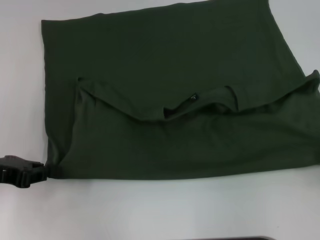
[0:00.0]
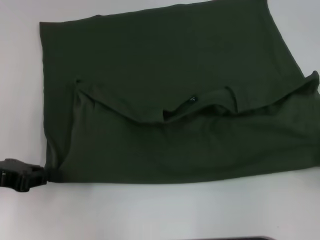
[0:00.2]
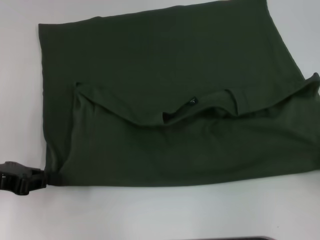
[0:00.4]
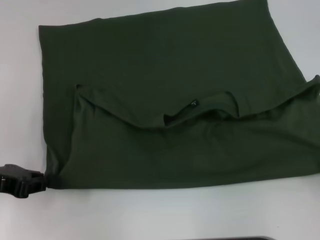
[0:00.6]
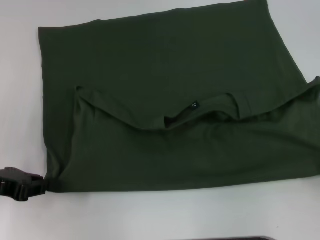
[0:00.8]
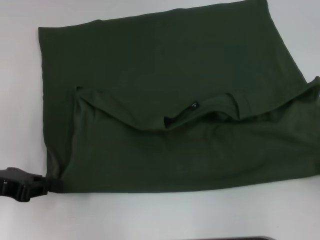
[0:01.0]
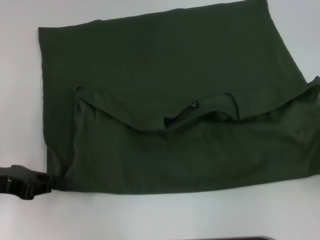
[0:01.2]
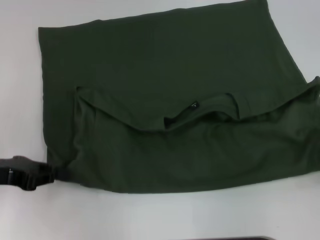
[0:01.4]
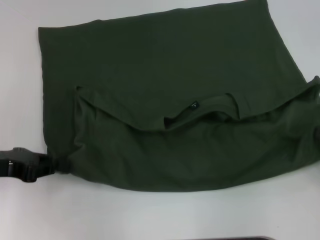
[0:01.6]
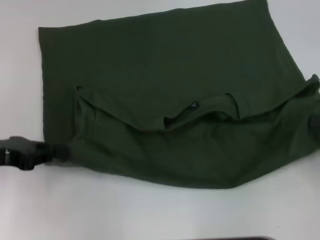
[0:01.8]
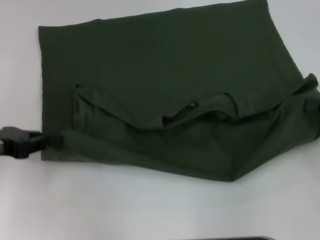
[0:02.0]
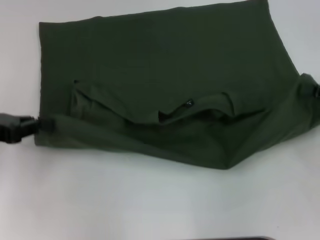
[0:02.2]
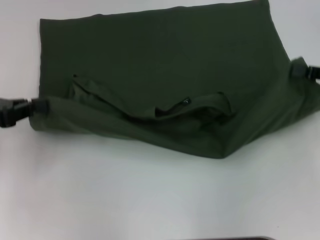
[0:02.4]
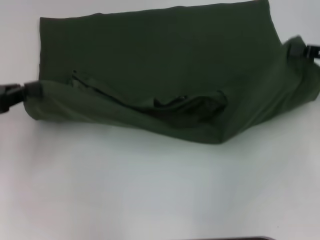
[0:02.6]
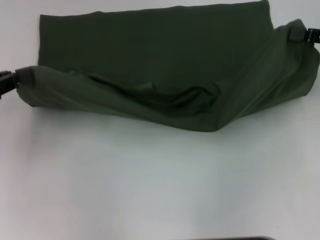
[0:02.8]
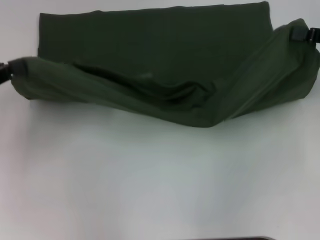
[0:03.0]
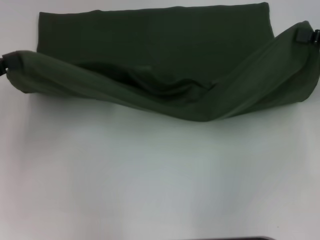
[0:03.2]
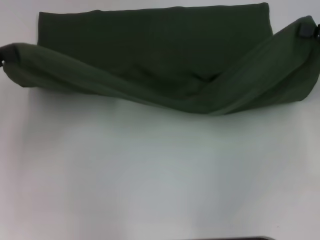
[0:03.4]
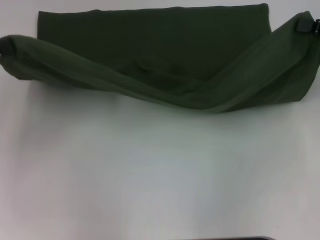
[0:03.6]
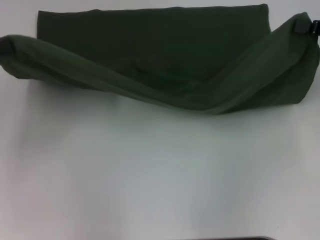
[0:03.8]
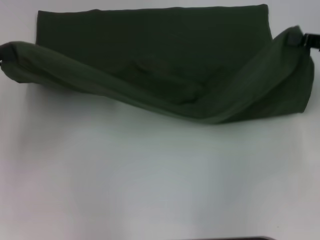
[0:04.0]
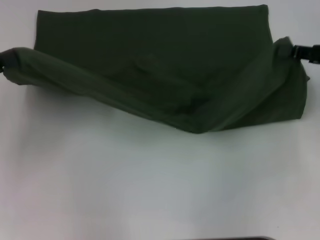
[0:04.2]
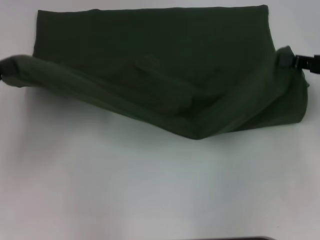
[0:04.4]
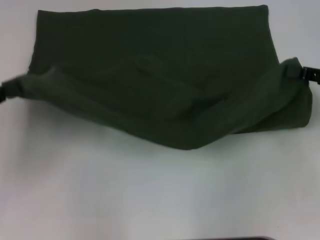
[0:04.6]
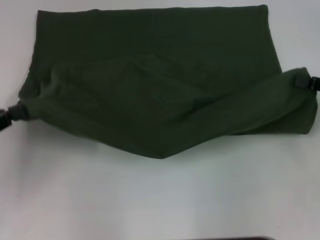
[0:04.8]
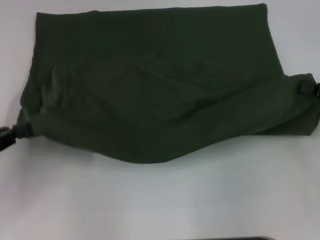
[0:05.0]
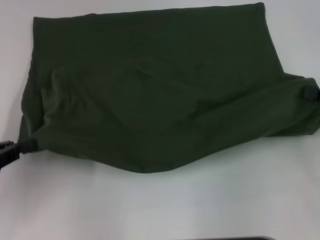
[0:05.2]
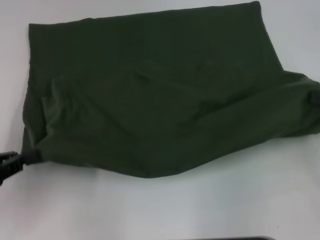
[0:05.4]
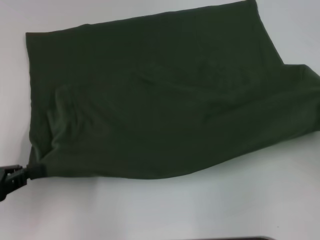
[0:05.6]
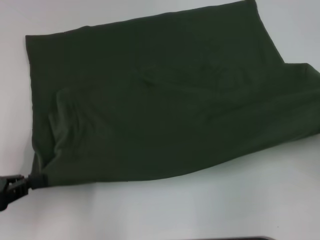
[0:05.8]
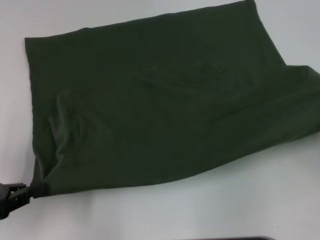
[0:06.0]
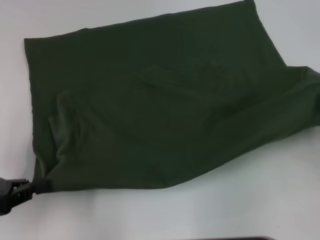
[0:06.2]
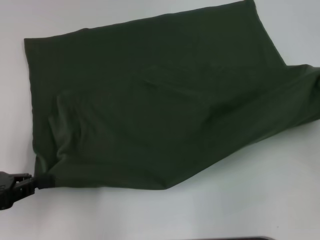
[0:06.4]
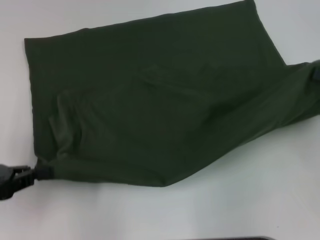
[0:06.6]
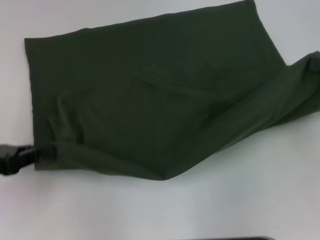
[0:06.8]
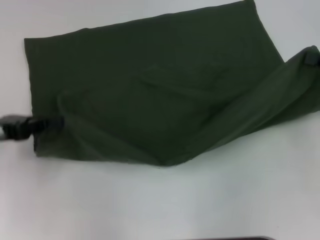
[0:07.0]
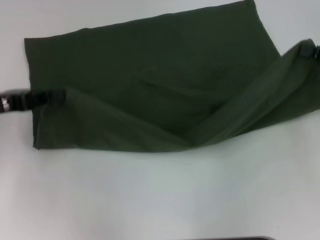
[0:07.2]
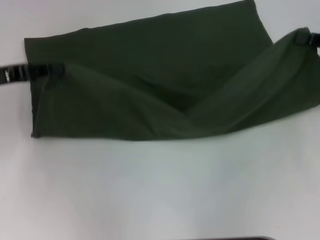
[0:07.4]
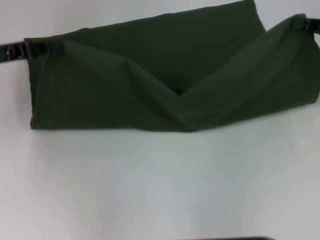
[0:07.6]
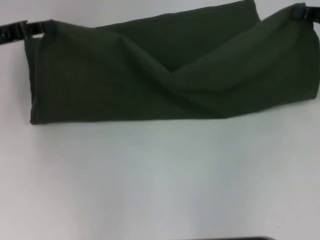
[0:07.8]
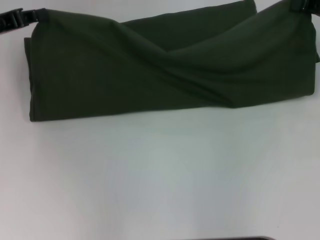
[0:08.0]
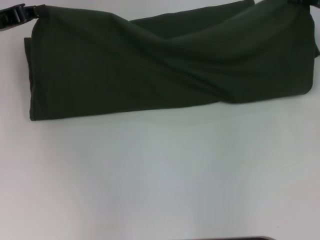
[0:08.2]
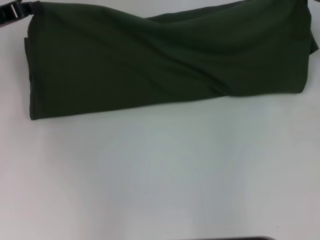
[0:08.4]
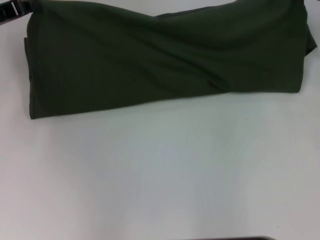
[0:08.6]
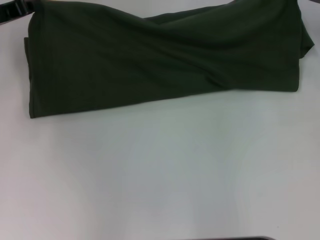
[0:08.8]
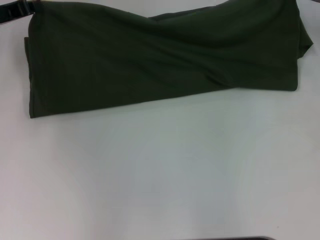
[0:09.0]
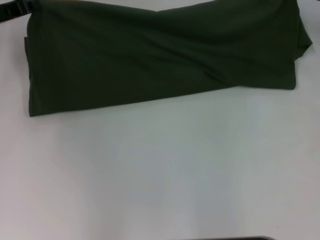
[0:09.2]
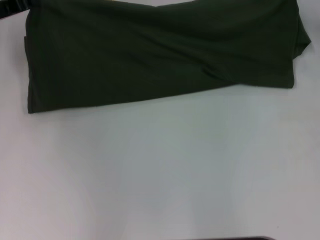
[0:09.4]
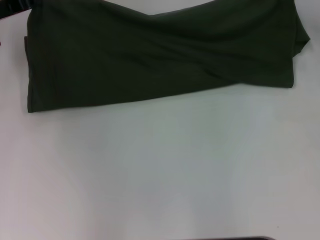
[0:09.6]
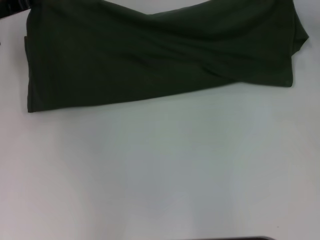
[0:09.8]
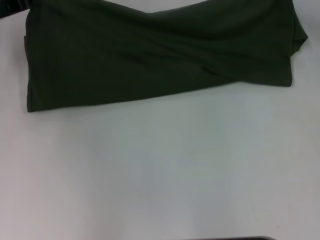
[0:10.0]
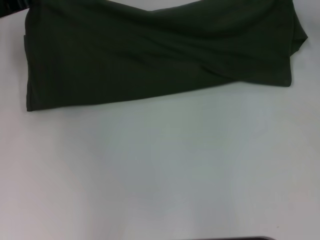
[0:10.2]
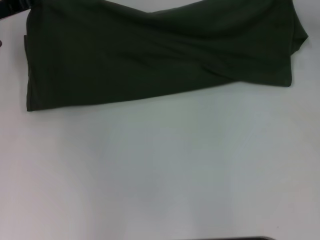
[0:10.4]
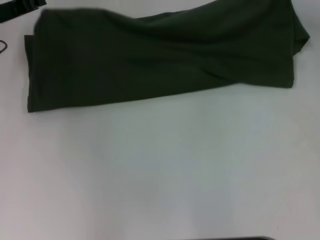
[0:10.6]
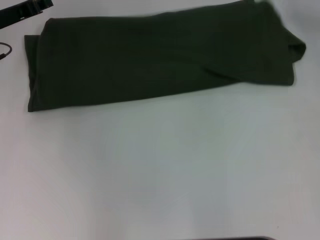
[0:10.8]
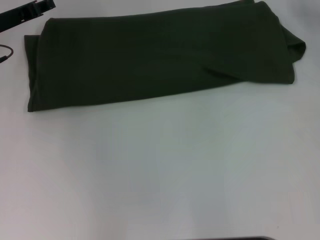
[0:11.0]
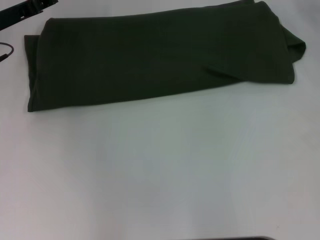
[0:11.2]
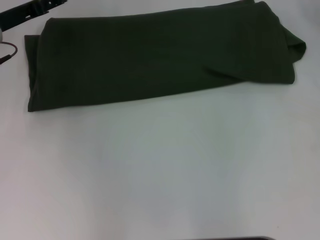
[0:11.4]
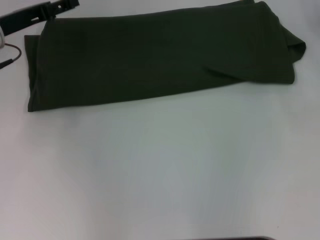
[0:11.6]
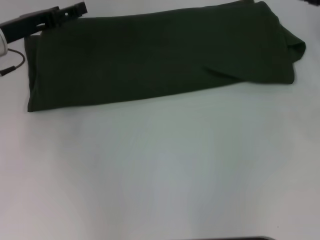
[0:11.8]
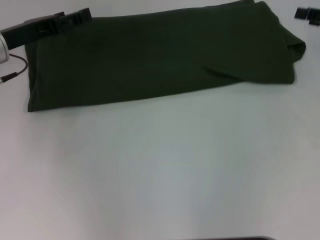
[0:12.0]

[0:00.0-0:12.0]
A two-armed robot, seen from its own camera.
Step, 0:00.8 to 0:11.2: Fold the clothes with your right hand.
0:00.0 to 0:01.6: There are only small adjustments of the grippers.
0:01.6 to 0:03.0: The left gripper moves roughly 5 cm. The right gripper travels forward and upward by approximately 15 cm.
0:03.0 to 0:04.4: The grippers move only a little.
0:04.4 to 0:06.0: The right gripper shifts roughly 10 cm backward and to the right; the left gripper moves backward and downward, some 10 cm.
0:06.0 to 0:07.6: Both grippers travel together forward, some 15 cm.
0:07.6 to 0:09.0: The grippers both shift forward by roughly 5 cm.
0:09.0 to 0:10.4: There are only small adjustments of the grippers.
0:10.4 to 0:12.0: The left gripper changes place by roughly 5 cm, and opens up. Meanwhile the right gripper heads backward and to the right, covering some 10 cm, and opens its fingers.

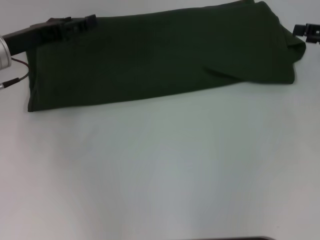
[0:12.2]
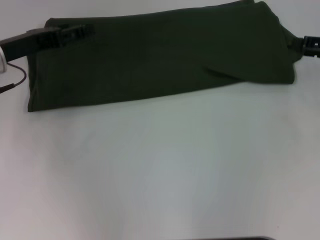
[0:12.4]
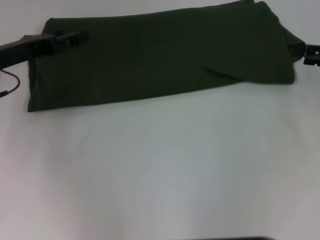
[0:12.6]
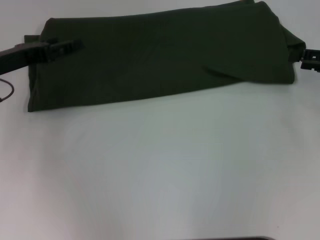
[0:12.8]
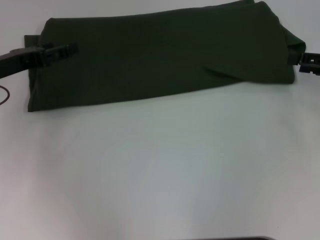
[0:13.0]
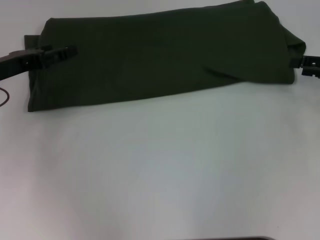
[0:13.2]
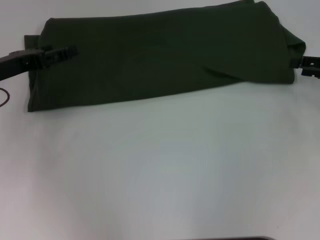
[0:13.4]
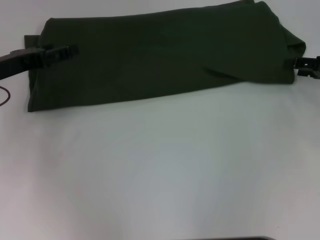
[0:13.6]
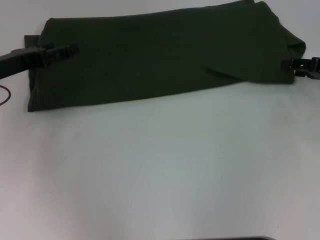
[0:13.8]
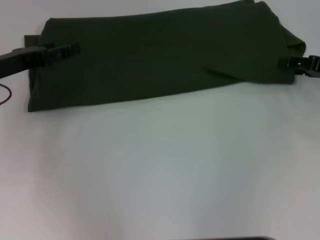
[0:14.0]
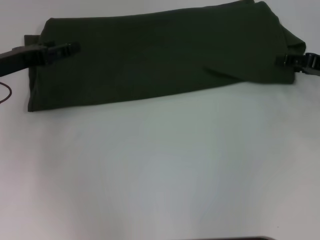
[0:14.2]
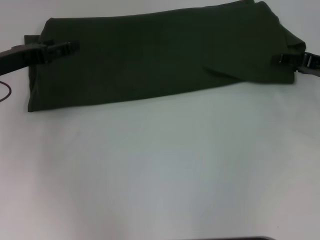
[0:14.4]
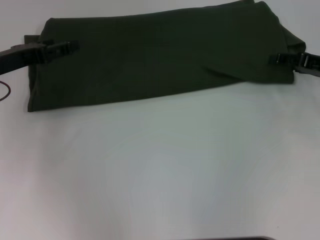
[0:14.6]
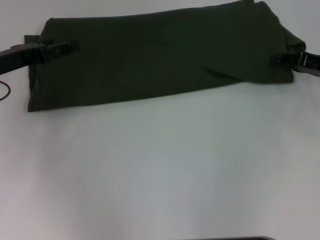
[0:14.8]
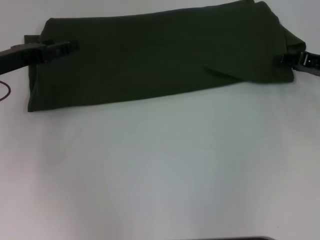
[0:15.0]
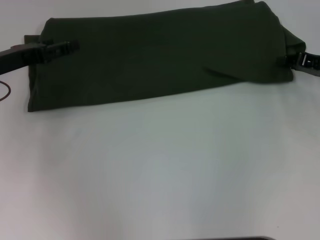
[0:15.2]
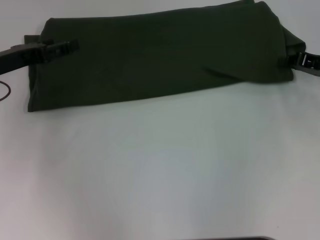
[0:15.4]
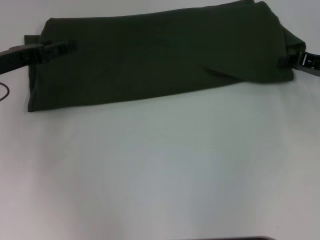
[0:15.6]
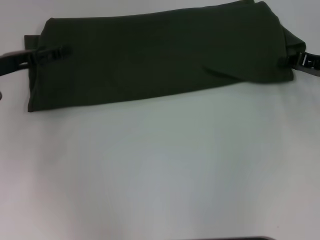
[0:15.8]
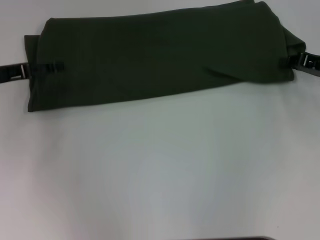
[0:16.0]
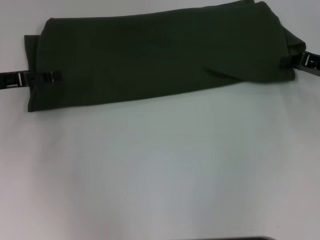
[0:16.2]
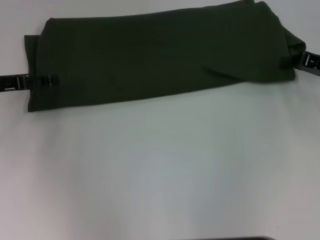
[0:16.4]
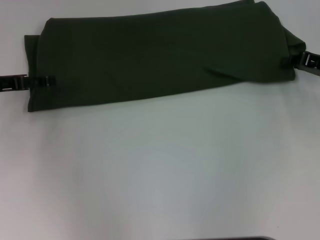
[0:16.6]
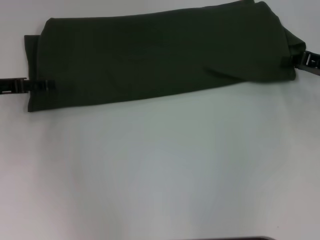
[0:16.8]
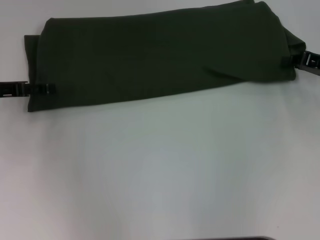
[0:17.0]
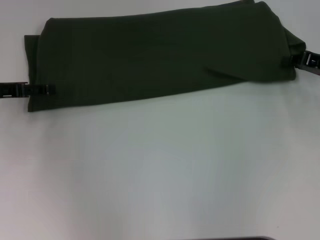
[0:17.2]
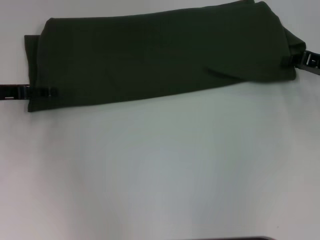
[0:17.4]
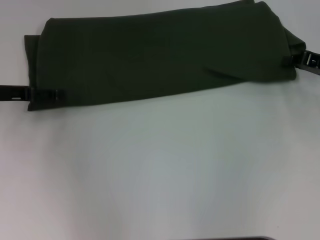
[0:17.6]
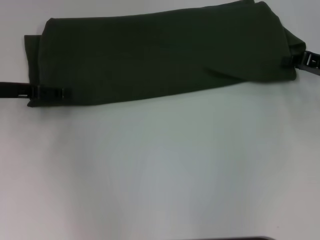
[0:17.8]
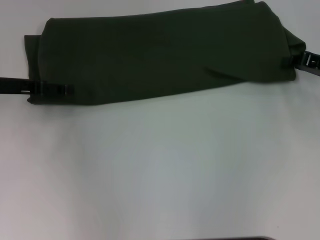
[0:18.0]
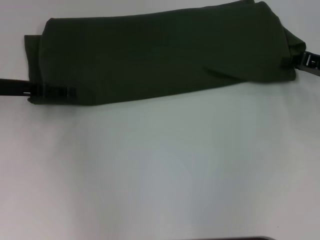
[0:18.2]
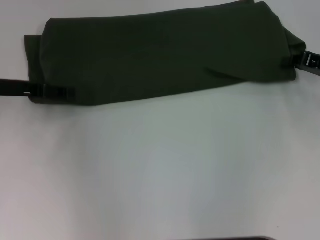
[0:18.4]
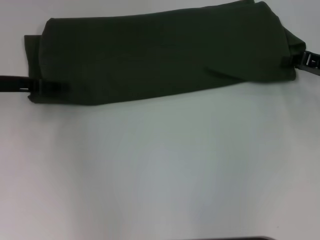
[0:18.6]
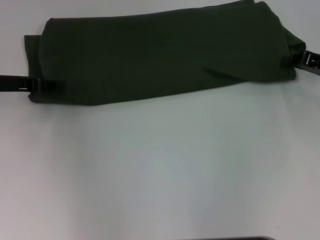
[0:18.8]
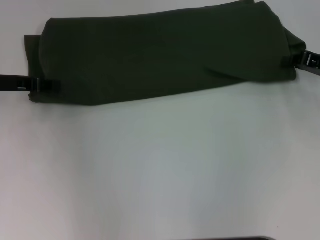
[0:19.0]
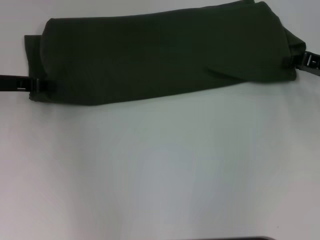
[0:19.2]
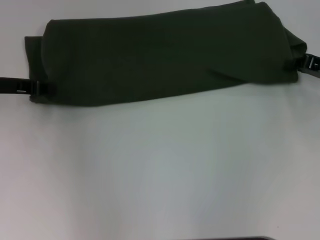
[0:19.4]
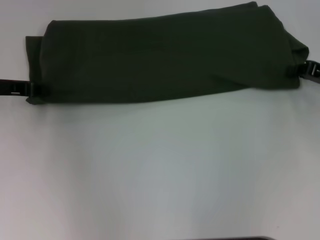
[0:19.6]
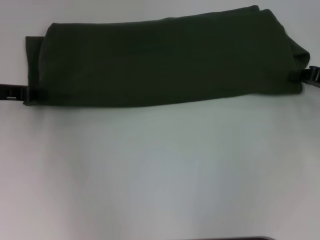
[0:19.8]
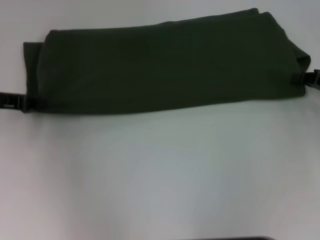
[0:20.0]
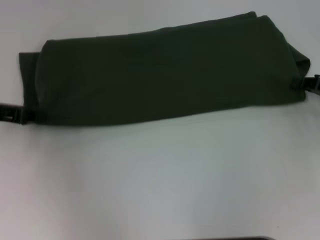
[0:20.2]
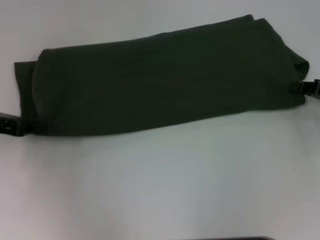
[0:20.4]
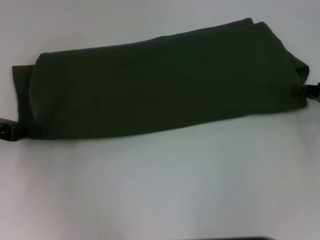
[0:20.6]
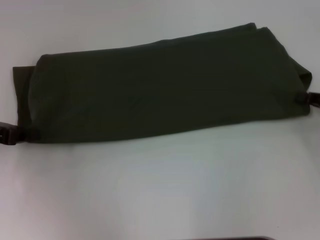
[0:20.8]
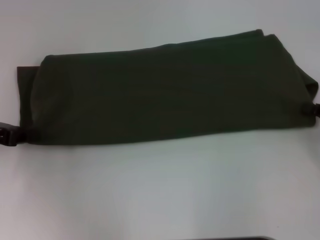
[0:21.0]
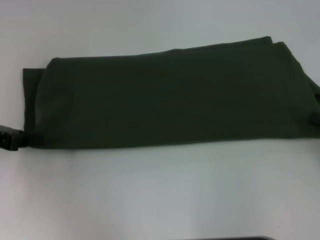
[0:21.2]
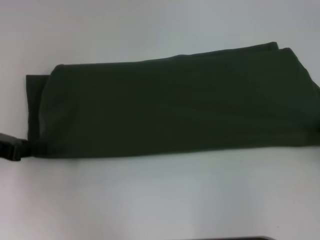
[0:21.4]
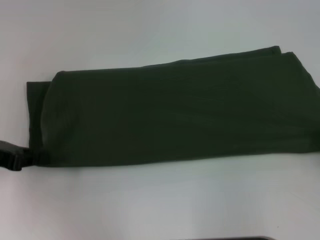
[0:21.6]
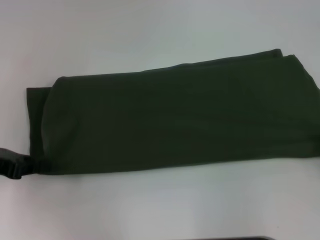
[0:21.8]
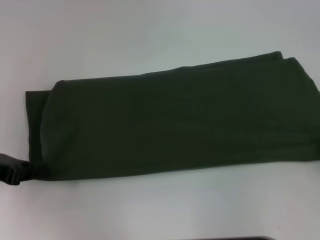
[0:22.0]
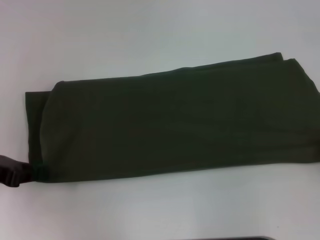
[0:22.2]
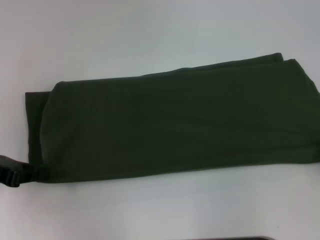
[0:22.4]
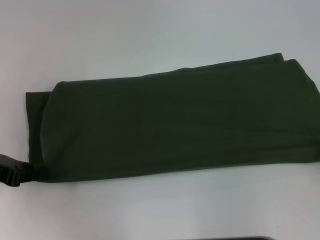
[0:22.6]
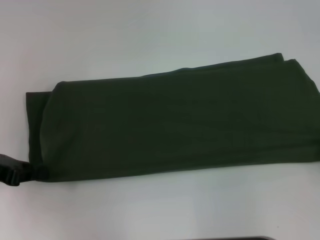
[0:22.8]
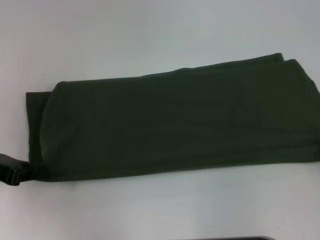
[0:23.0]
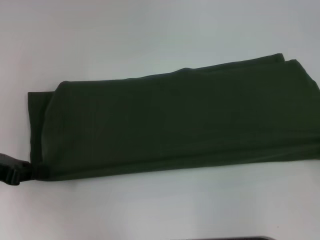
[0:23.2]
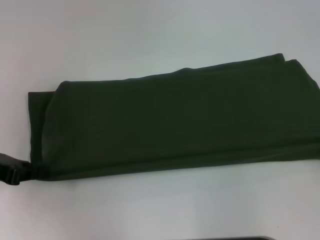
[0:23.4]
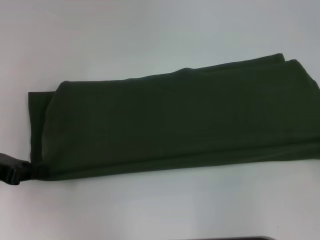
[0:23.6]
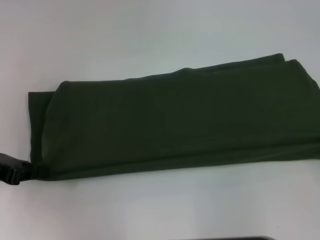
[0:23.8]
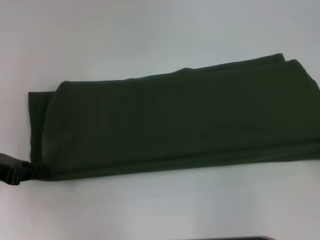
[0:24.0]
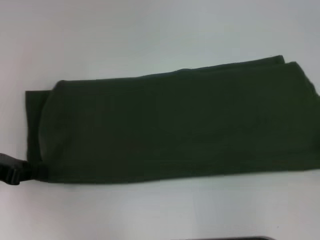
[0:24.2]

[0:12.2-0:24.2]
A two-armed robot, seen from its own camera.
0:12.2 to 0:13.8: There are only small adjustments of the grippers.
0:15.2 to 0:16.6: The grippers move only a little.
0:16.6 to 0:18.2: The grippers move only a little.
0:18.2 to 0:19.8: The left gripper closes.
0:19.8 to 0:21.2: The right gripper shifts roughly 10 cm backward, while the left gripper travels backward by about 5 cm.
0:21.2 to 0:22.6: The right gripper travels backward by about 5 cm.
0:22.6 to 0:24.2: The two grippers keep their place.
